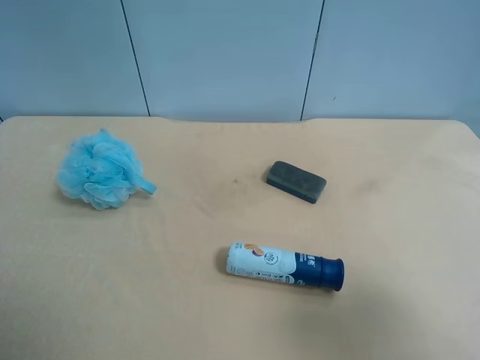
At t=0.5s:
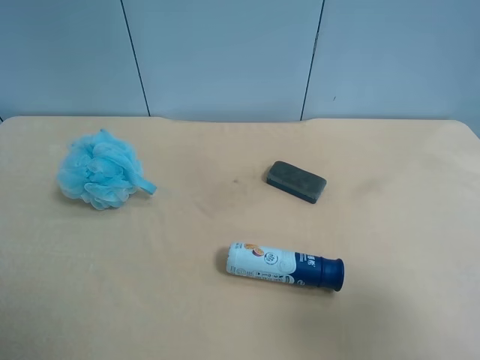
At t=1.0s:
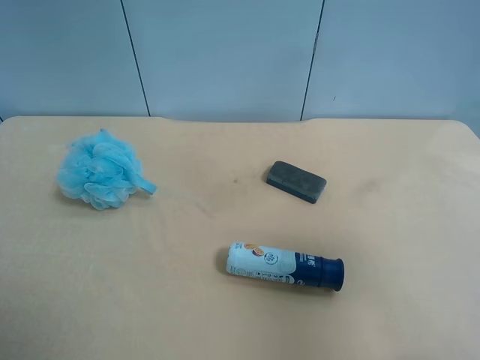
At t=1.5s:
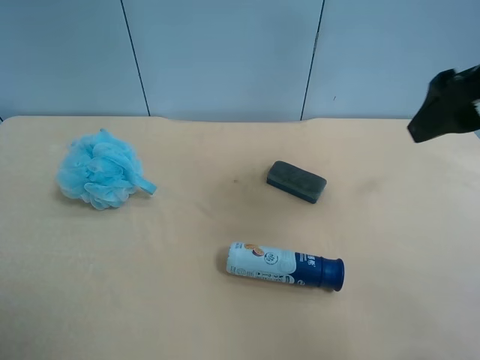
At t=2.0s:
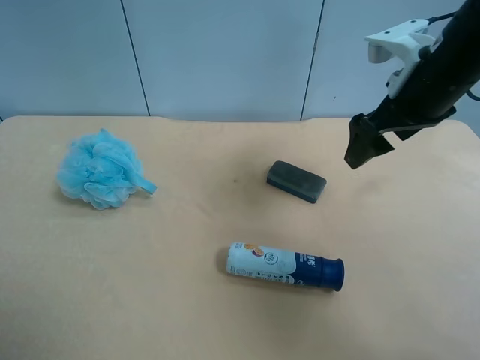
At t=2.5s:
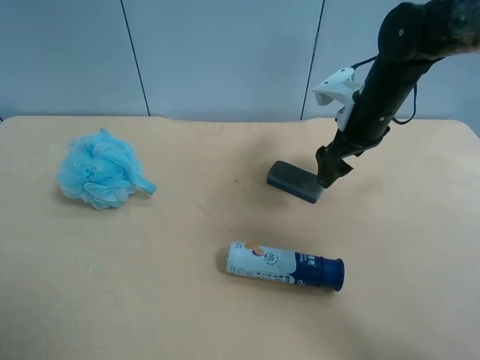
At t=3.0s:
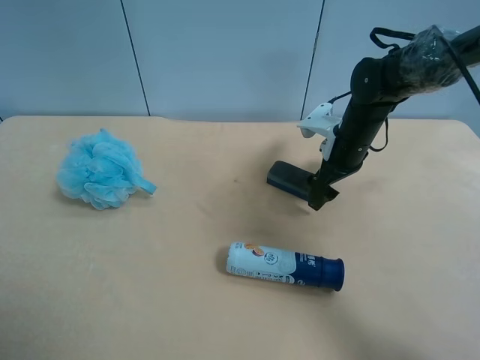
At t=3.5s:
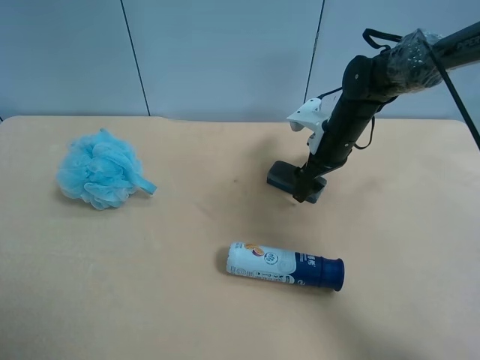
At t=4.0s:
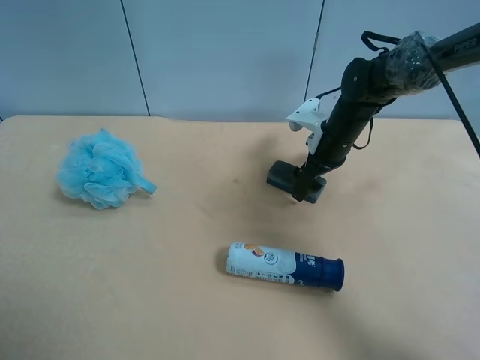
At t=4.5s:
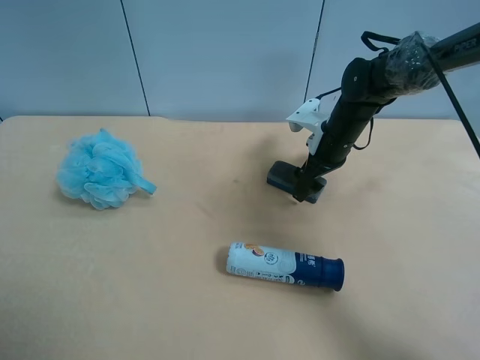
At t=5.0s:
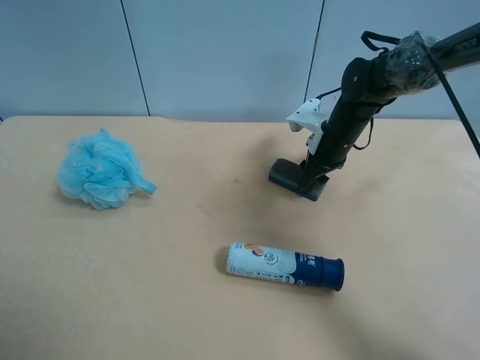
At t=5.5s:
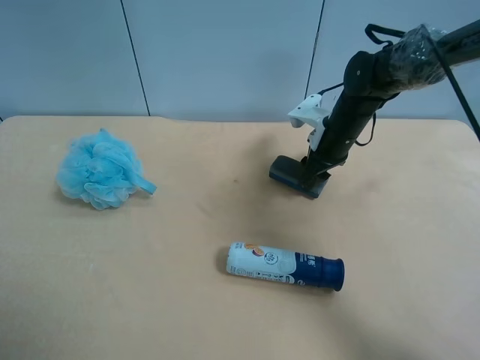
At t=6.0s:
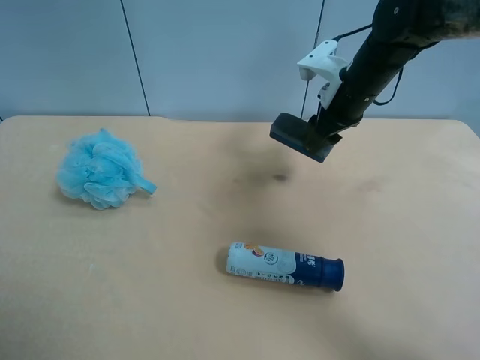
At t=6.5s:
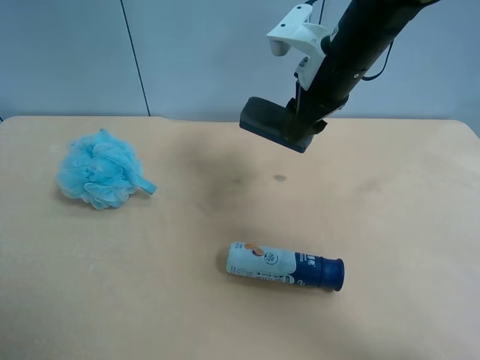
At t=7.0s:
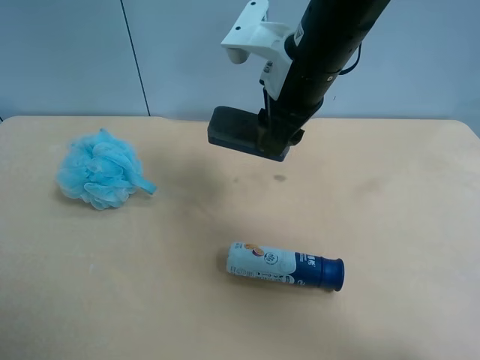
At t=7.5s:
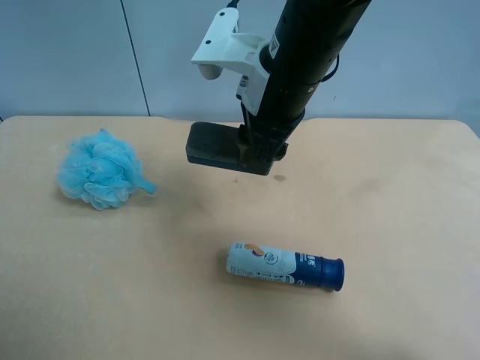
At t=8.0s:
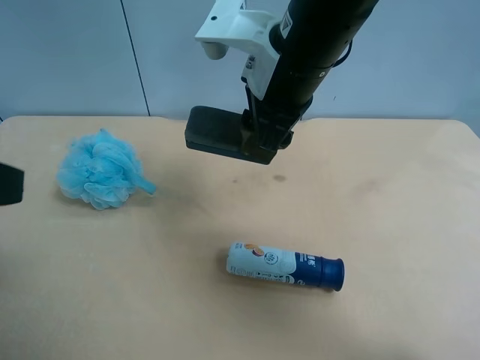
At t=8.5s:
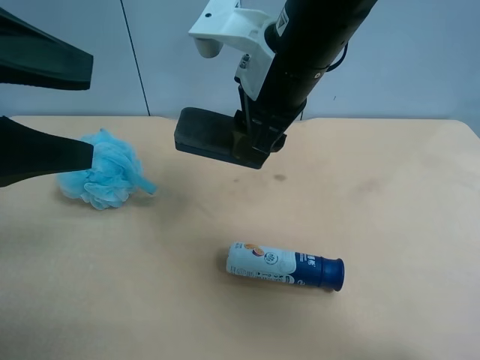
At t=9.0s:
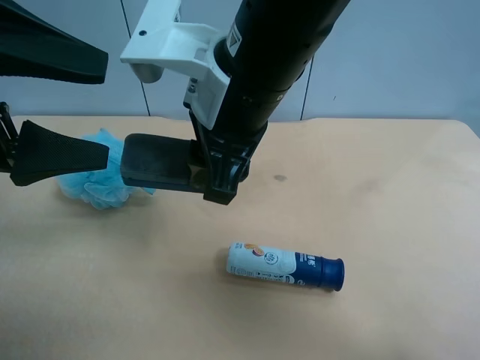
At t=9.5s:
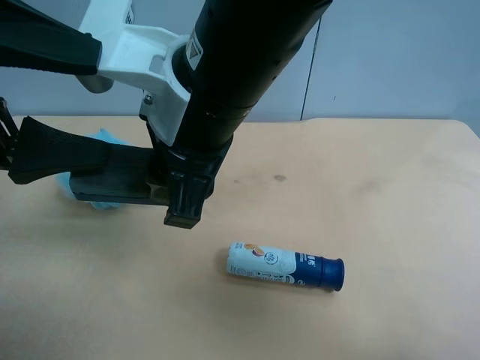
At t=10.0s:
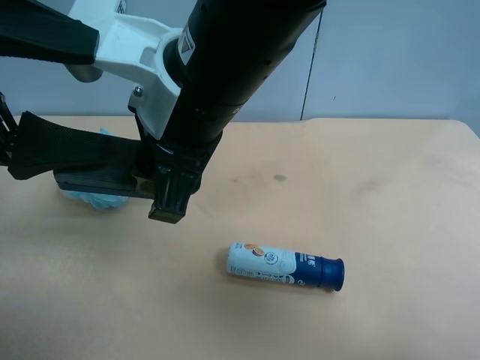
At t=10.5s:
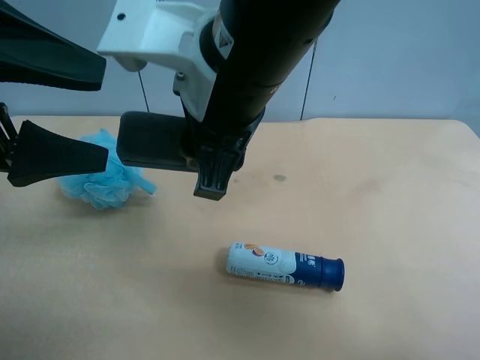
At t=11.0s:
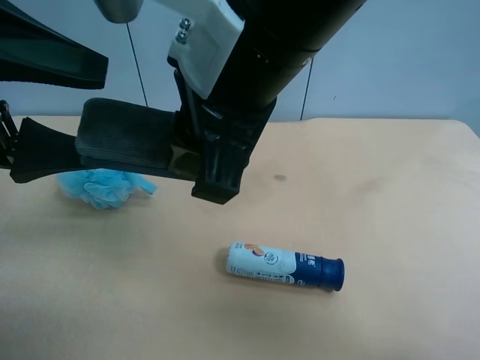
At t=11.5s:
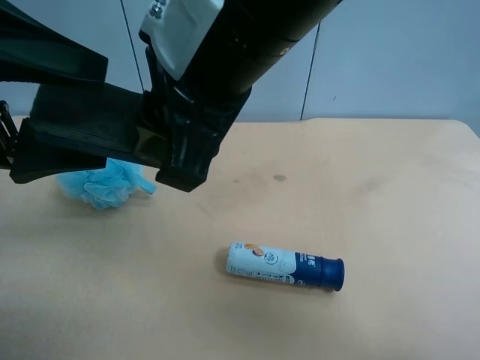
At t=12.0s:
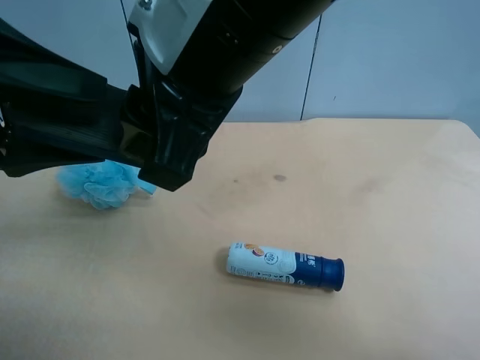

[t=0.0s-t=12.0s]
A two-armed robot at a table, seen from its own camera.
Task of the whole recording: use the right gripper to pick up the item and transfer it from the right gripper to the left gripper.
t=0.0s to t=2.0s: The right gripper heads forward, covering about 30 cm.
t=2.0s to t=4.0s: The right gripper heads downward and forward, covering roughly 20 cm.
t=4.0s to t=6.0s: The right gripper goes approximately 10 cm upward, and closes its fingers.
t=6.0s to t=8.0s: The right gripper moves backward, to the left and upward, approximately 20 cm, while the left gripper shifts approximately 10 cm forward and to the right.
t=8.0s to t=10.0s: The right gripper is displaced to the left and backward by some 10 cm; the left gripper moves forward, about 5 cm.
t=10.0s to t=12.0s: The left gripper closes its fingers. The right gripper moves some 5 cm.

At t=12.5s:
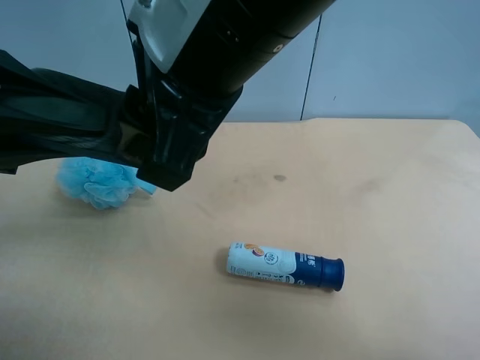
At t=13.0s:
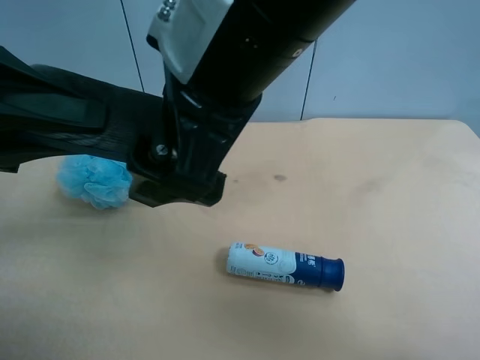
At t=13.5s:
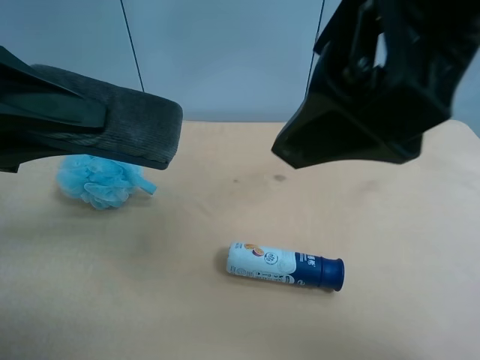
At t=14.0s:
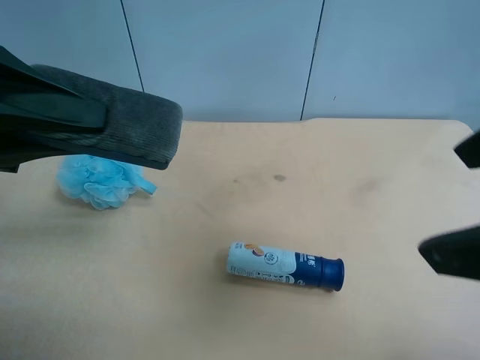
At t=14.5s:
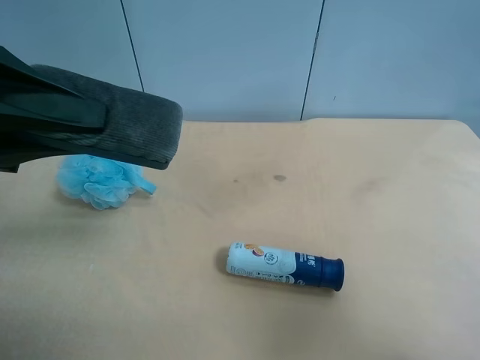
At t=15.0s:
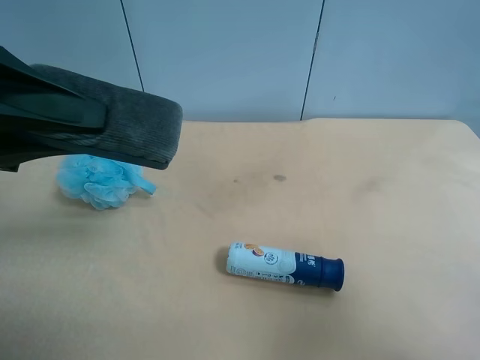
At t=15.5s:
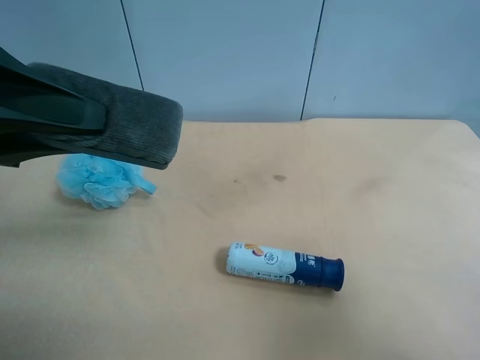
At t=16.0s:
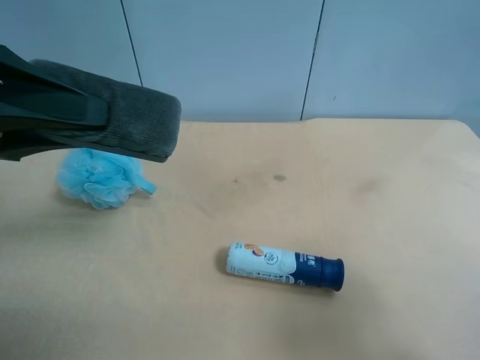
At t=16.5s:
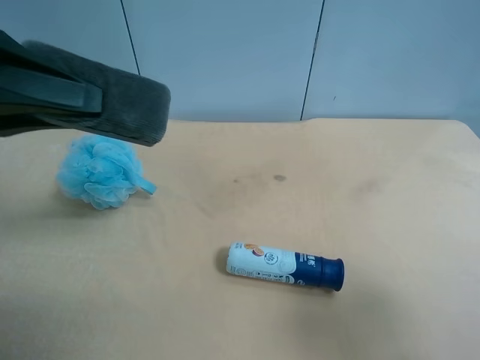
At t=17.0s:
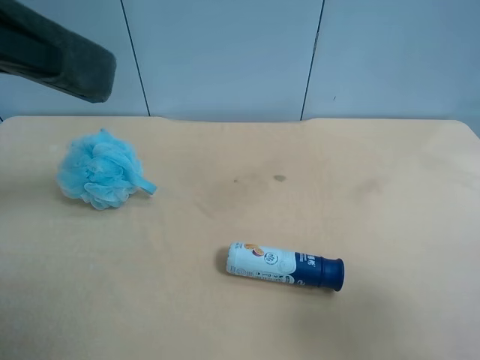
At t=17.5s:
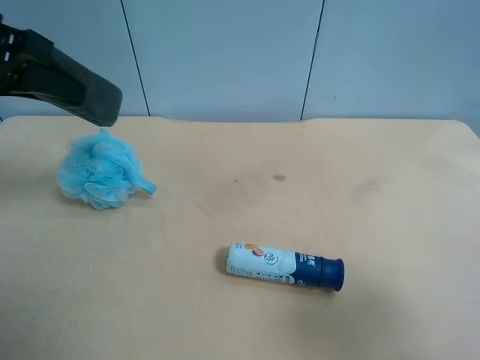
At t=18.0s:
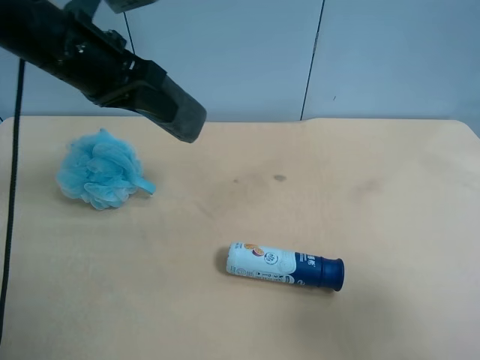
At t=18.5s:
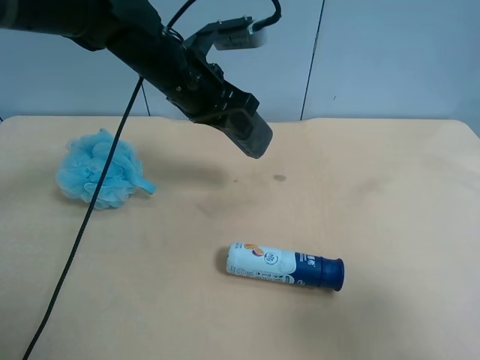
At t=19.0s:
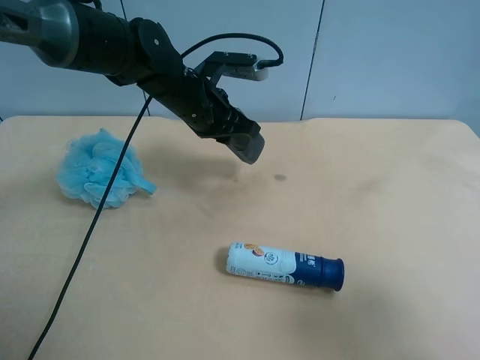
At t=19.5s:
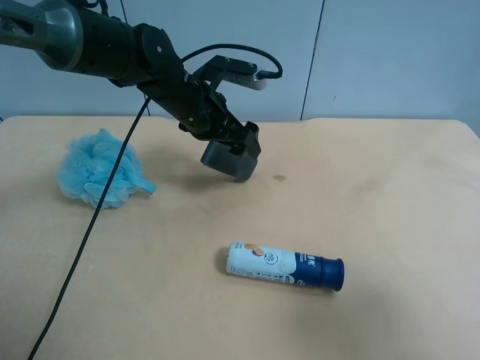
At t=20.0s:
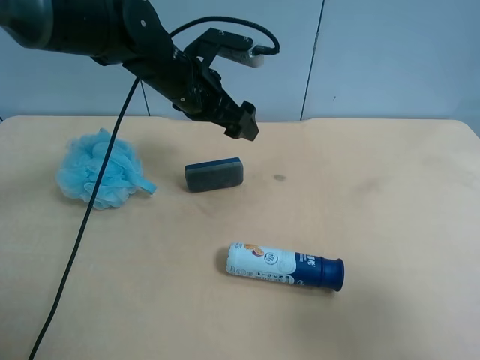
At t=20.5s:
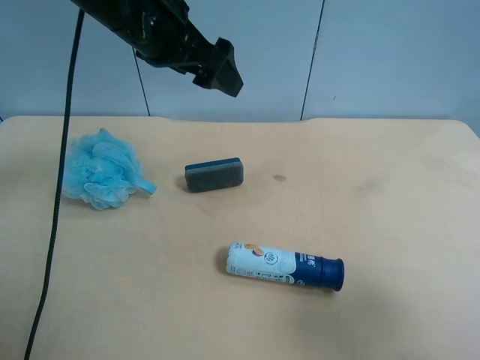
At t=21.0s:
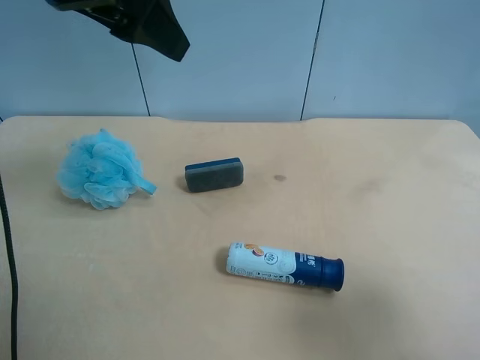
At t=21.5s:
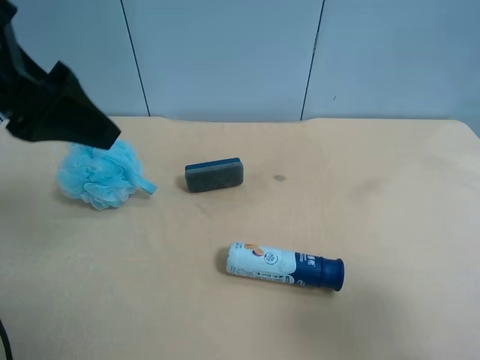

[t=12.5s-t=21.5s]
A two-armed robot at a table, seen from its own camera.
Task of the whole recording: use the right gripper to pick up the item and transfer it from the right gripper to the left gripper.
t=12.5s to t=14.5s: The right gripper shifts some 30 cm to the right and backward, and opens up.
t=14.5s to t=17.0s: The left gripper heads upward, covering approximately 5 cm.
t=17.0s to t=19.5s: The left gripper moves to the right, downward and forward, about 30 cm, and opens its fingers.
t=19.5s to t=21.5s: The left gripper travels backward, upward and to the left by some 30 cm.

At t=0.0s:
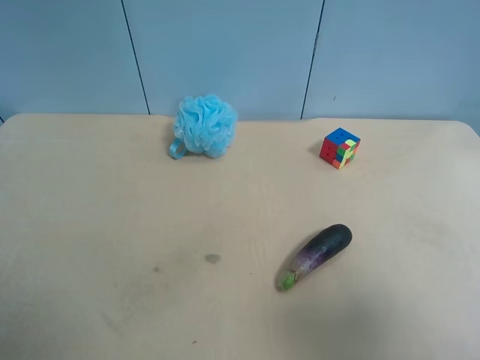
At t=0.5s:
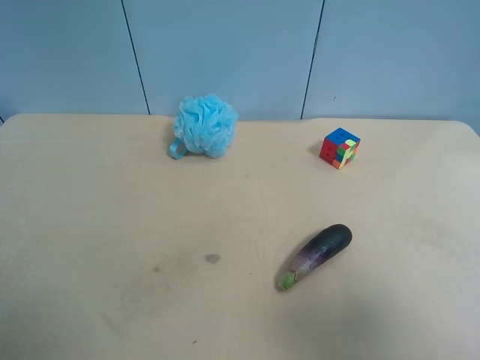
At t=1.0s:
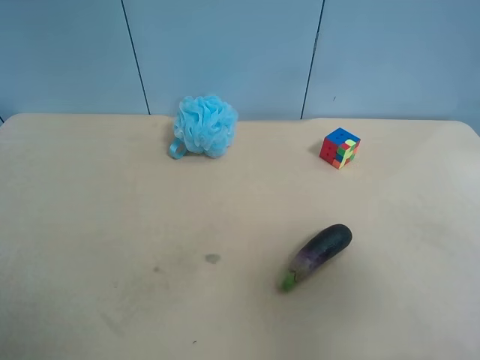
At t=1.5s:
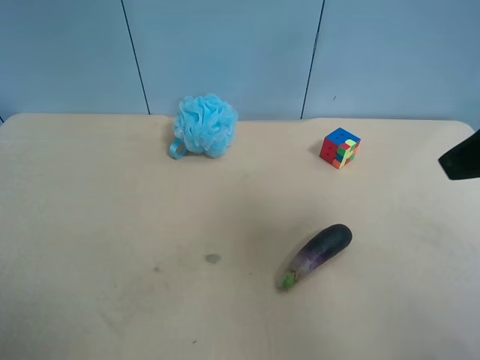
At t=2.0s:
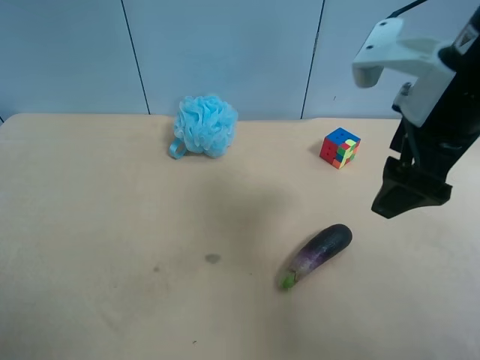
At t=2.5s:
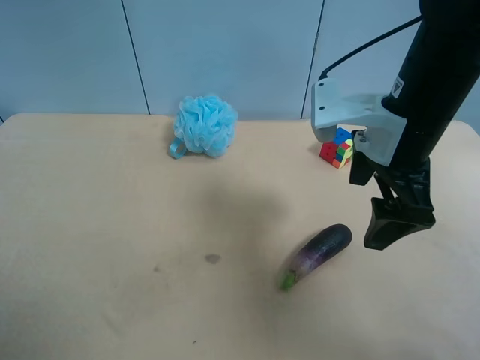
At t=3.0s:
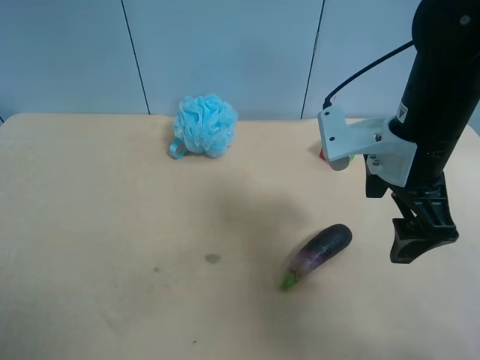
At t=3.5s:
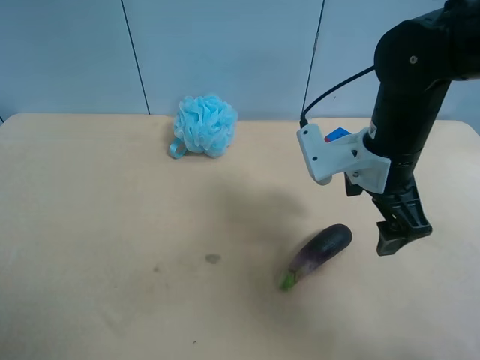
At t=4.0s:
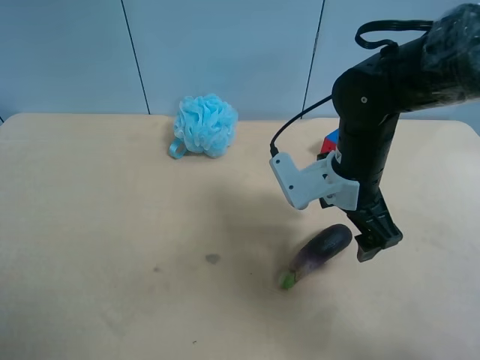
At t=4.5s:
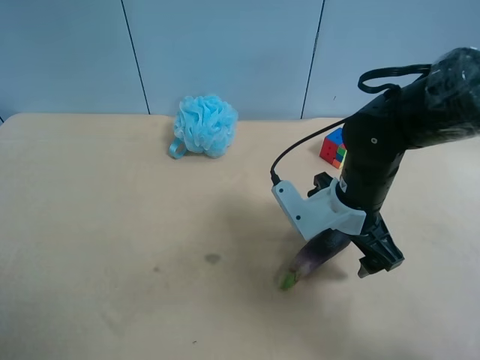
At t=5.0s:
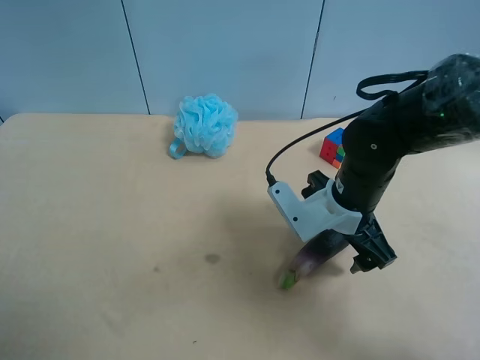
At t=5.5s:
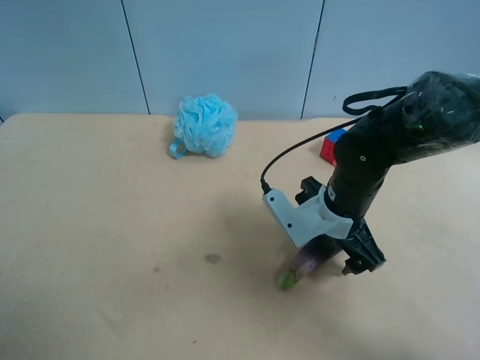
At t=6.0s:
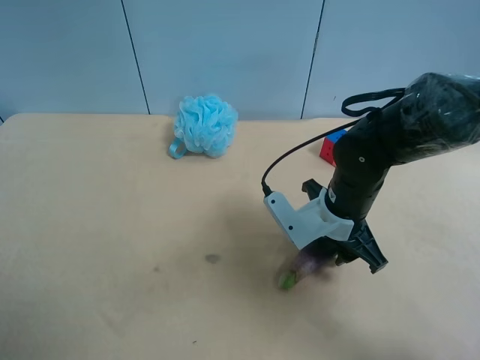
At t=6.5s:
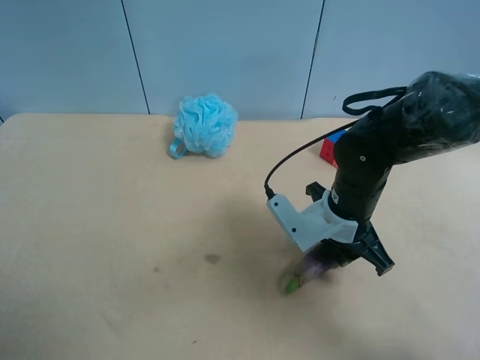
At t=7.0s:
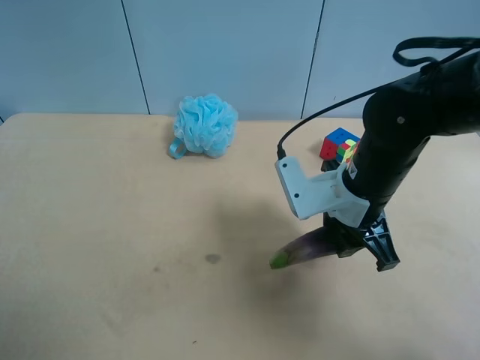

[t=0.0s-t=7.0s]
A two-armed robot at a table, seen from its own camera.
Task of the whole recording: use the right gripper to pick up the item and transfer it from the right gripper to the left gripper.
t=0.0s to t=2.0s: The right gripper moves forward and to the left, about 25 cm.
t=2.0s to t=3.5s: The right gripper heads downward, covering some 10 cm.
t=3.5s to t=5.0s: The right gripper moves downward, about 10 cm.
t=5.0s to t=7.0s: The right gripper ends up about 5 cm from where it was, and closes up.
